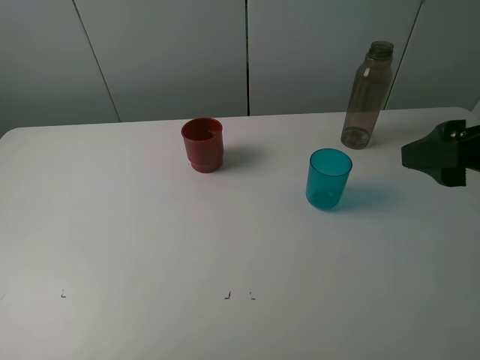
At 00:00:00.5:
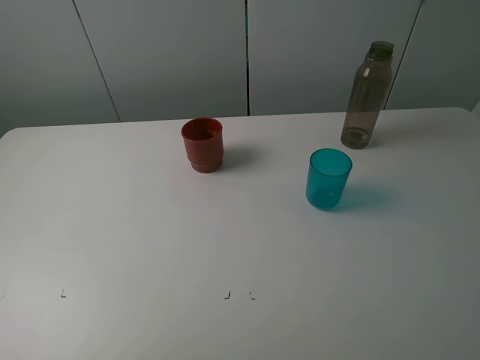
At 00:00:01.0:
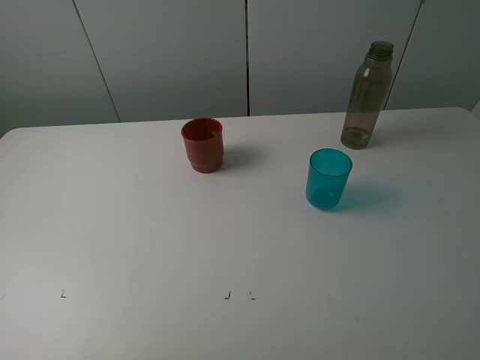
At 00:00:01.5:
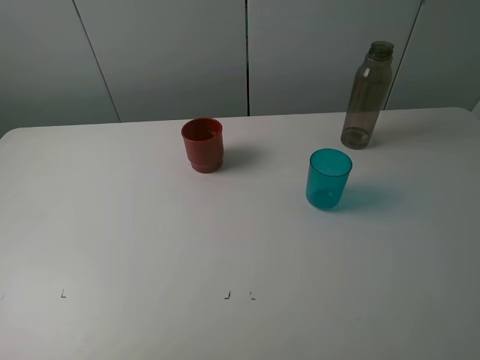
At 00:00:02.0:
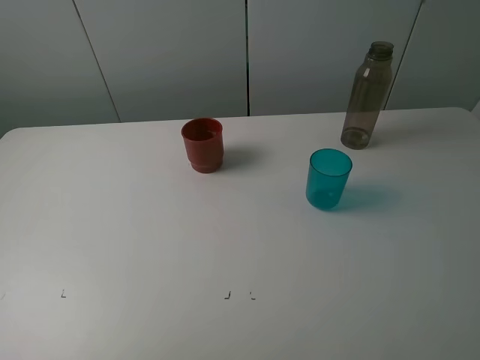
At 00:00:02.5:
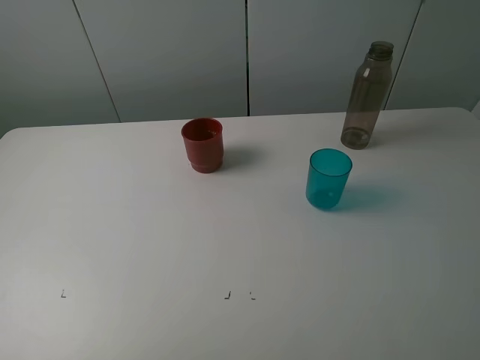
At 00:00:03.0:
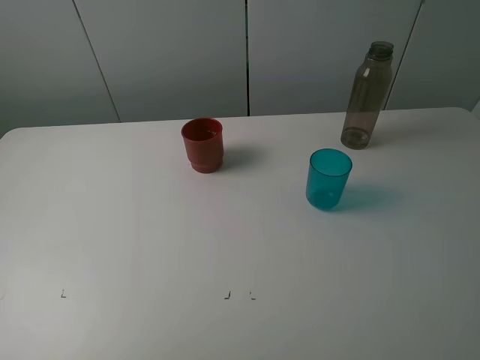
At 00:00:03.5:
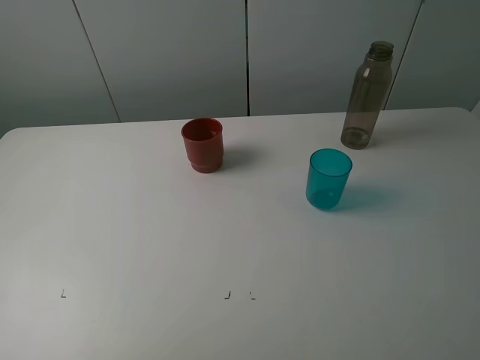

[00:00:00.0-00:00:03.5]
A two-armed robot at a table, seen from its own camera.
Task of the whole recording: pick up the bottle and pour water into the cup, then pick up the cup containing water and pour it into another cup.
00:00:00.0 to 00:00:02.0: The right gripper moves backward, approximately 15 cm.
00:00:02.0 to 00:00:03.5: Both grippers stay about where they are.
